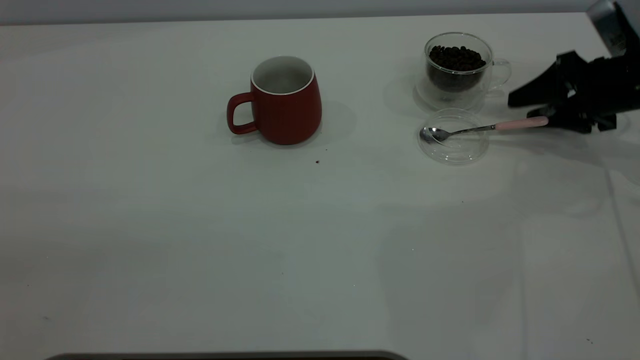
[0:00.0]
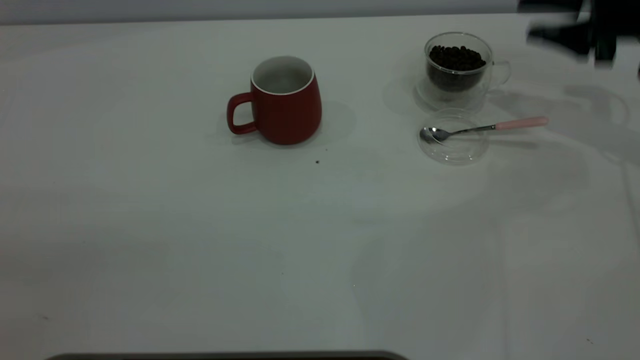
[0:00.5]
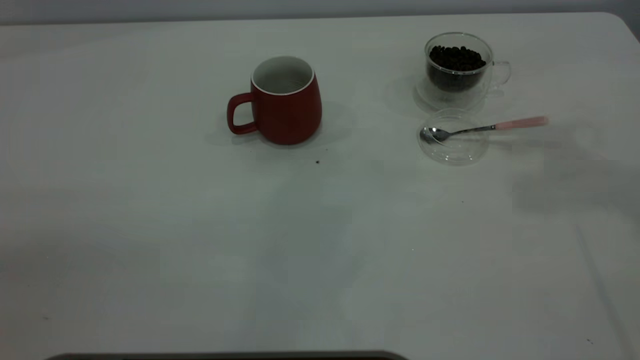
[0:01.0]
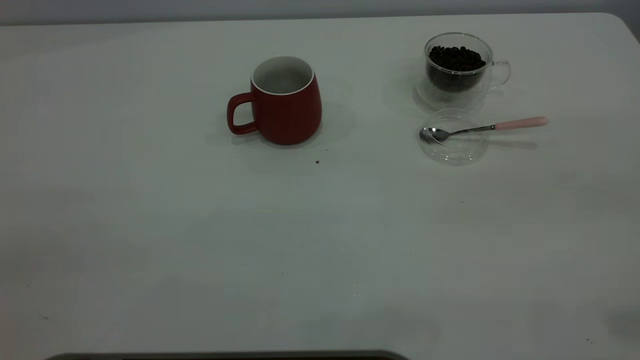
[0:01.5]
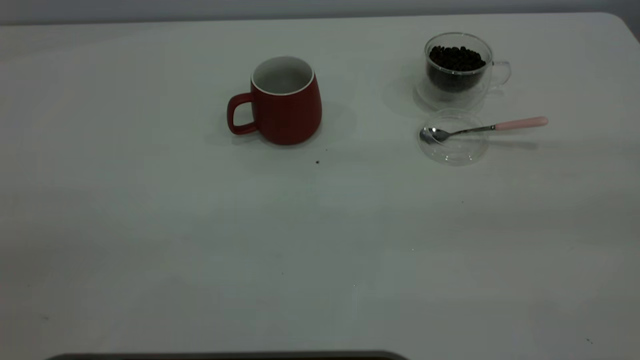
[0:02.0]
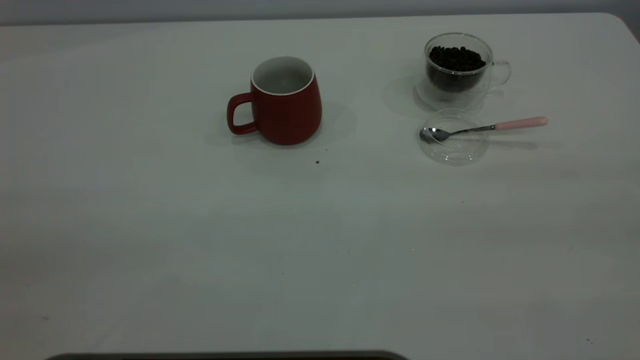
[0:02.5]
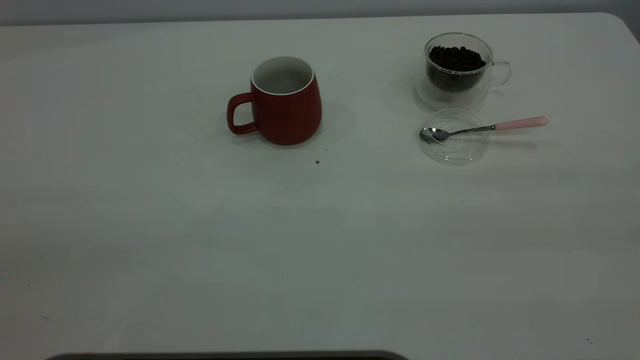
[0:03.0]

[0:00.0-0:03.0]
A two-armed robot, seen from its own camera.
Task of the whole recording: the left gripper place the red cup in the center of the table, the right gripper take the pink spoon from the cup lid and scoop out the coffee beans from the coffee cup and put them into the red cup, the right gripper put the spoon back into the cup lid.
0:00.0 to 0:01.5: The right gripper goes about 40 cm backward and upward.

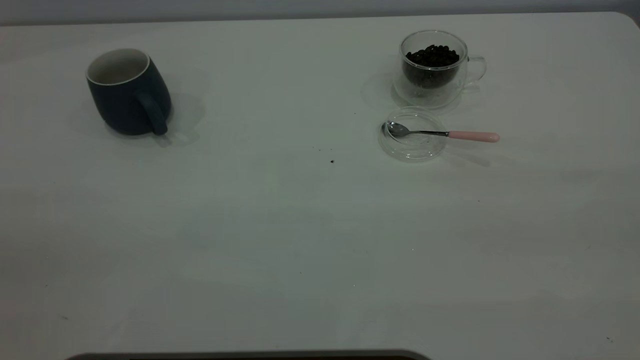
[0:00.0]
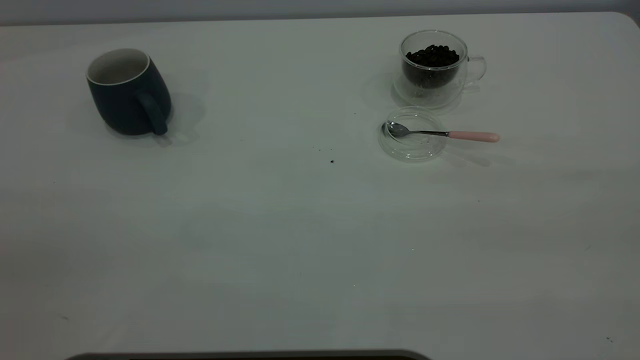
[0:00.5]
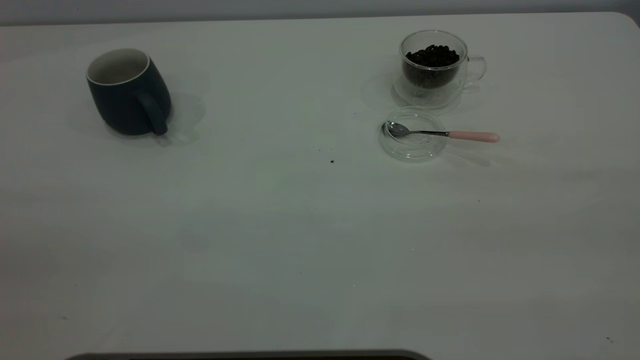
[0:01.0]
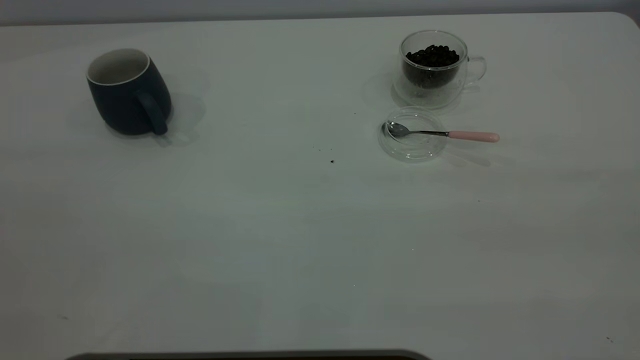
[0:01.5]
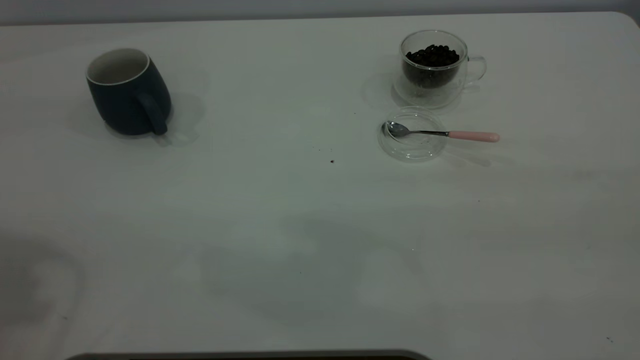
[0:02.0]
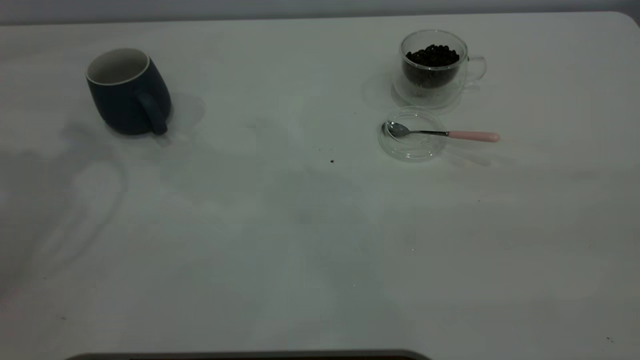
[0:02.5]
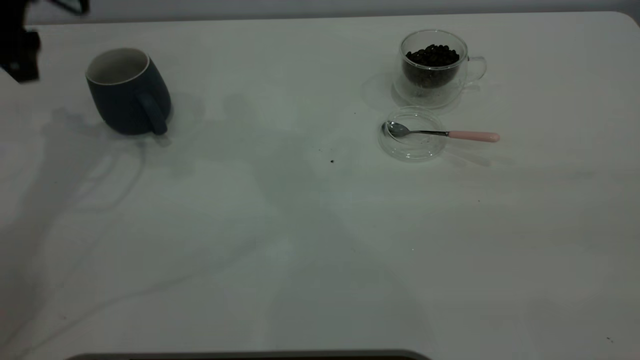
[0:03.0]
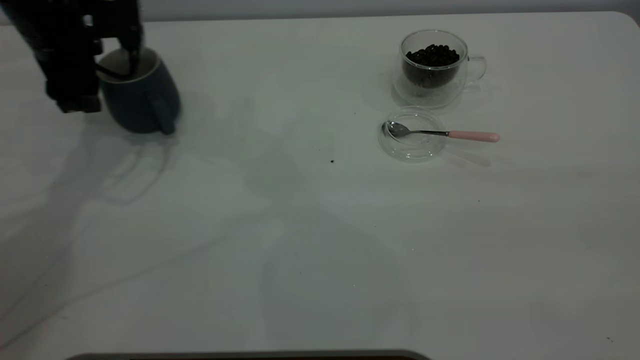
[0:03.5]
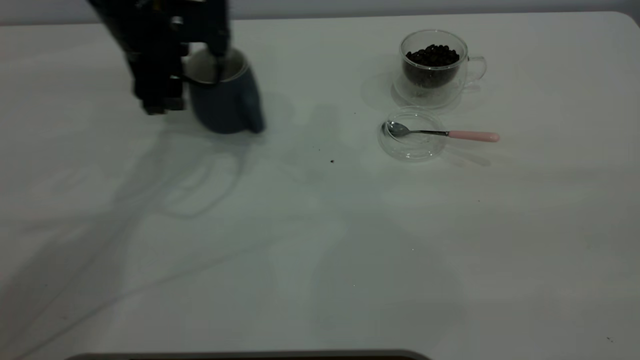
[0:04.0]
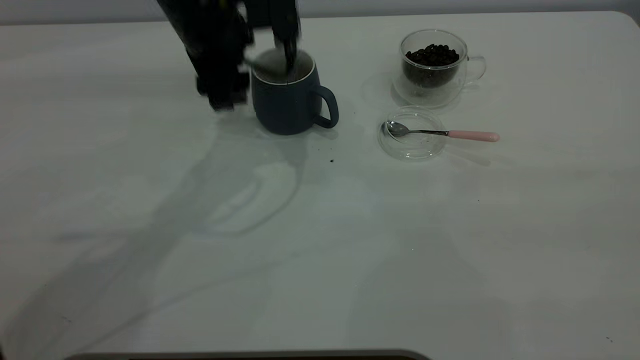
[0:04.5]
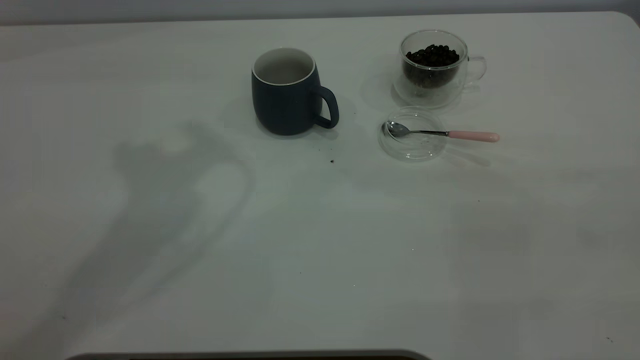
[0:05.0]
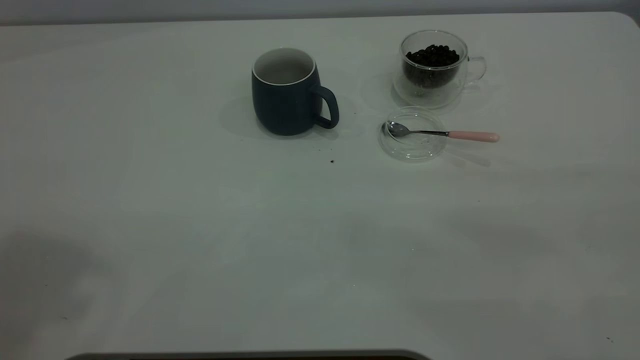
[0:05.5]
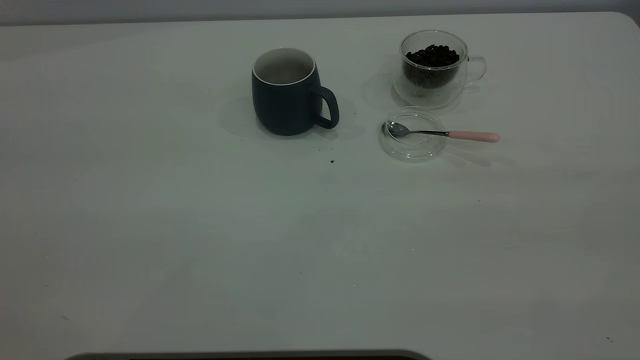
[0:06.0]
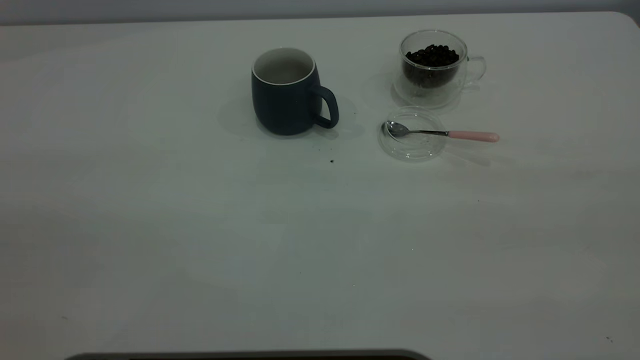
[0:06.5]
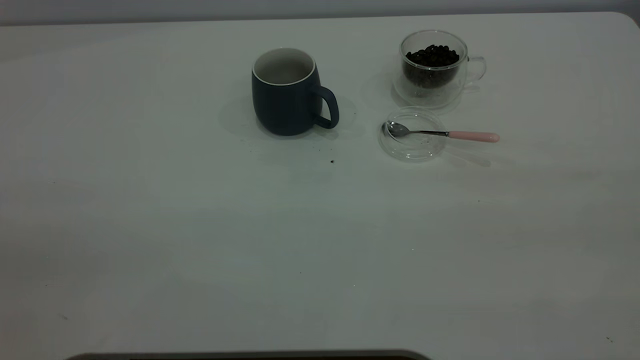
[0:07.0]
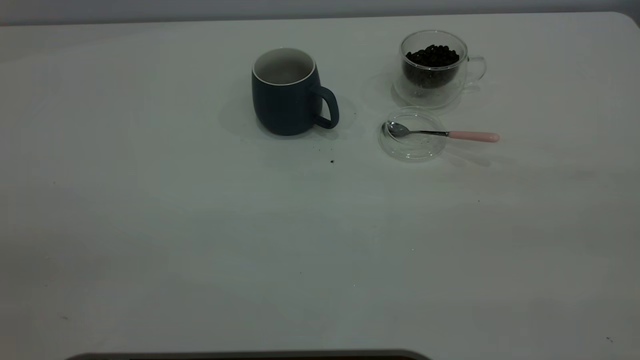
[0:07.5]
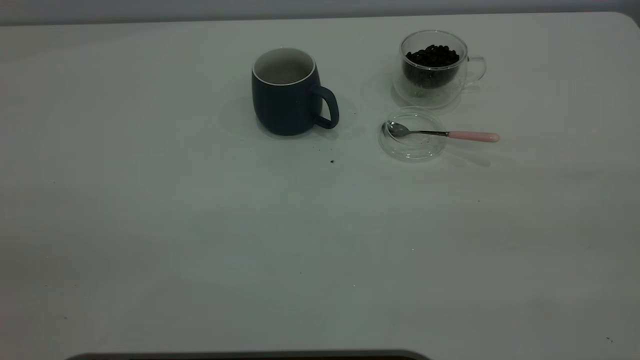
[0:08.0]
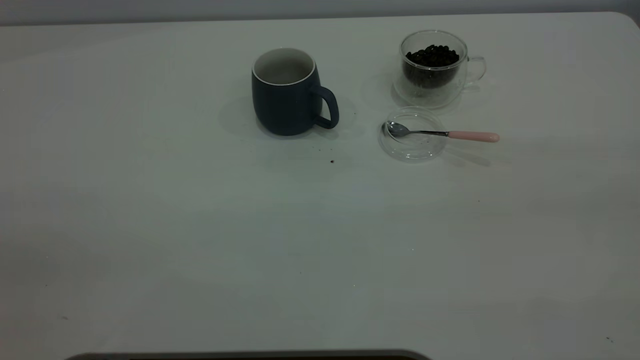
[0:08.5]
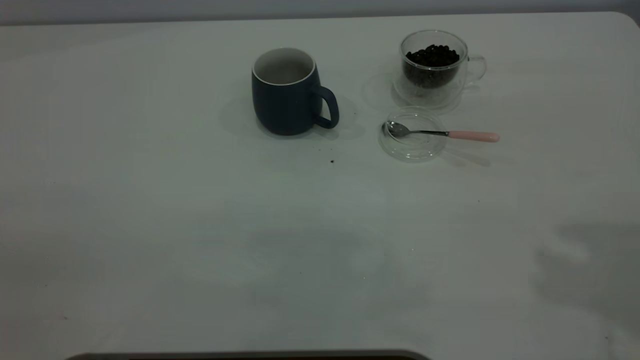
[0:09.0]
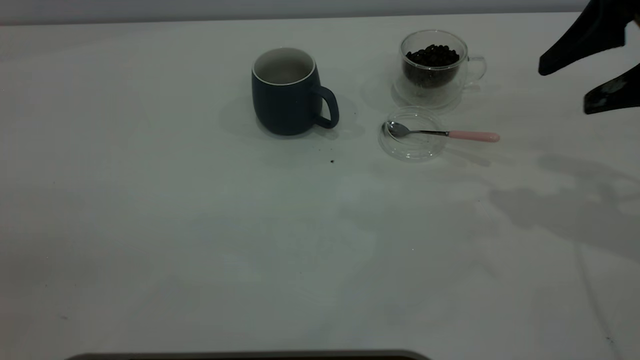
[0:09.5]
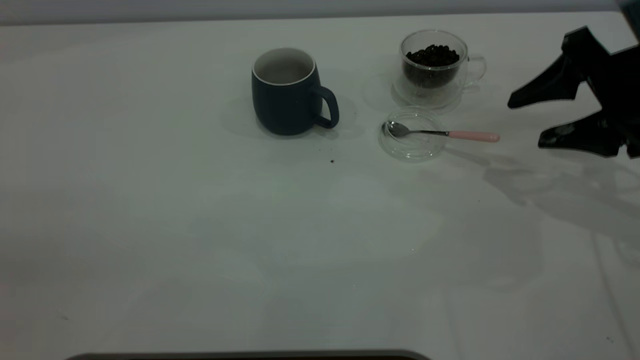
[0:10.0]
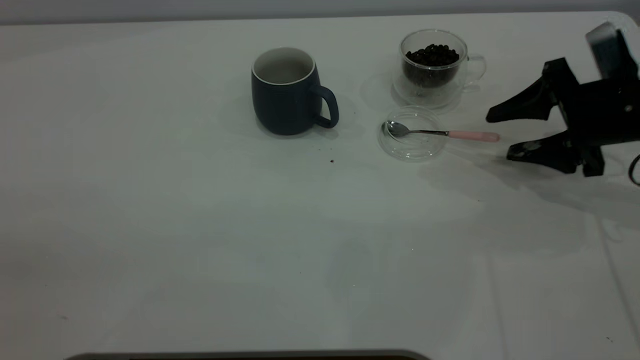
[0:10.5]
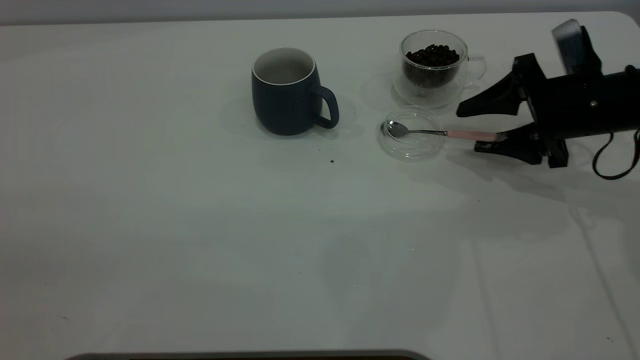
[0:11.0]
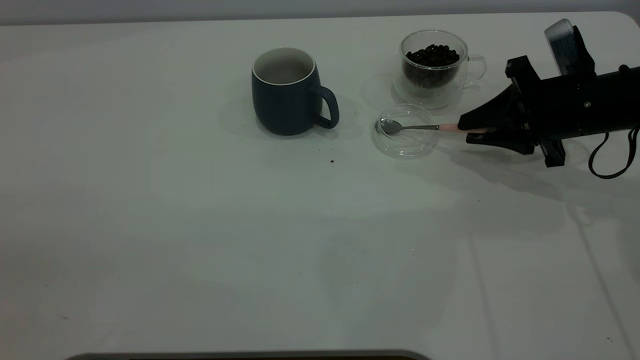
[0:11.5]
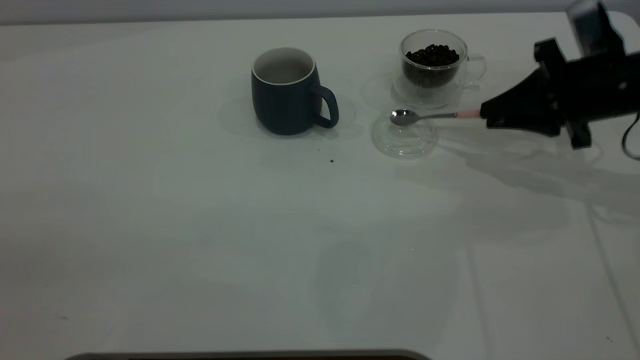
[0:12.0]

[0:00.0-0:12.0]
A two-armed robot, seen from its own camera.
Task of the whole recording: the left gripper place the grey cup in the center of the table, the right gripper take the pink spoon from the cup lid and scoop out the coffee beans from the coffee cup and put them into the grey cup, the right gripper put the spoon back into the cup lid.
Step, 0:00.0 to 0:04.5: Move the cup to the center of view.
Step, 0:05.0 to 0:12.0: Pick up the spoon.
0:02.0 to 0:04.0: The left gripper moves downward, forward and to the right, some 35 cm.
0:04.0 to 0:06.0: The left gripper travels backward and upward by roughly 50 cm.
0:08.0 to 0:10.0: The right gripper goes some 40 cm forward and downward.
0:10.0 to 0:12.0: The right gripper closes.

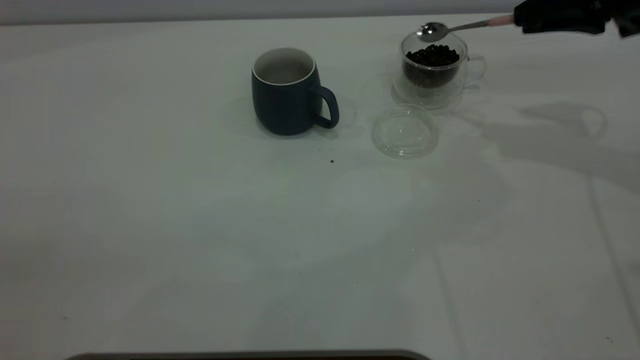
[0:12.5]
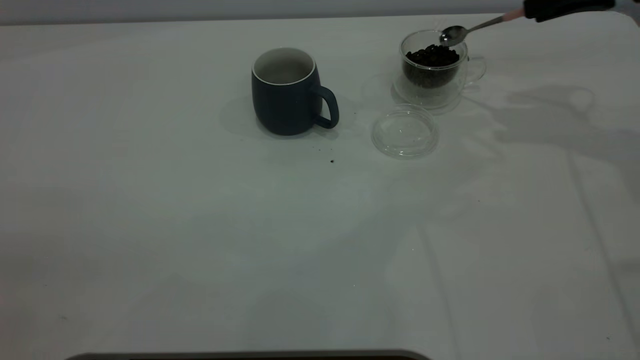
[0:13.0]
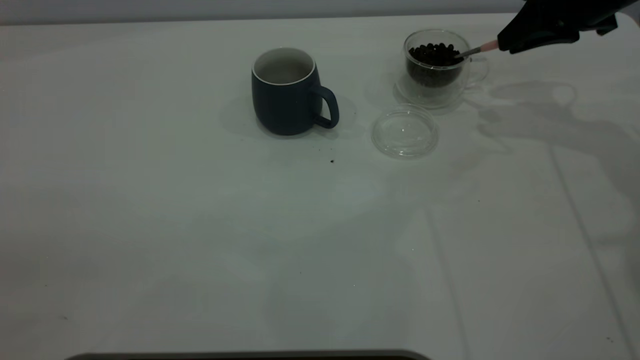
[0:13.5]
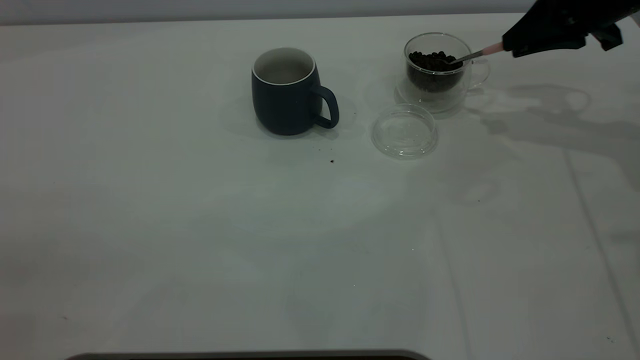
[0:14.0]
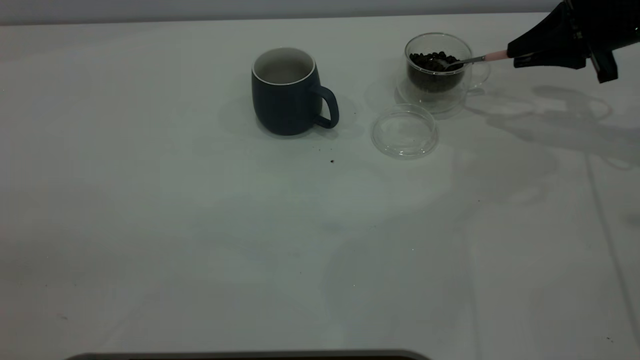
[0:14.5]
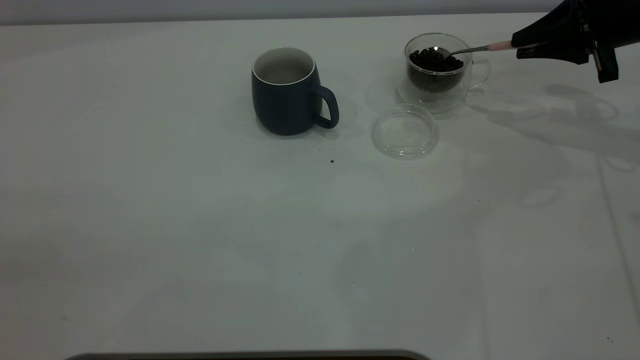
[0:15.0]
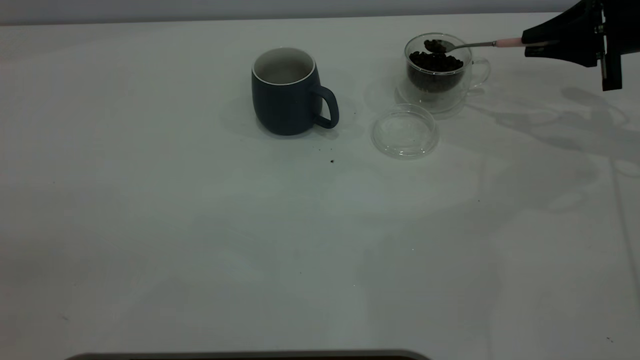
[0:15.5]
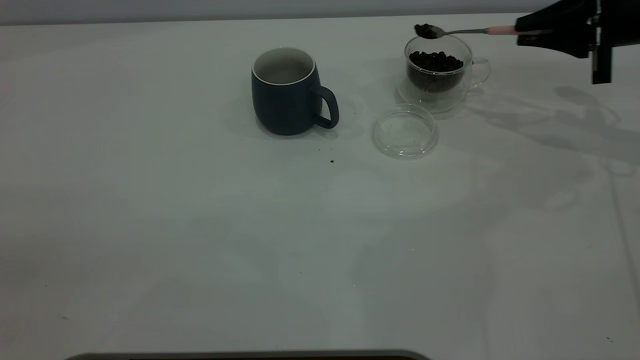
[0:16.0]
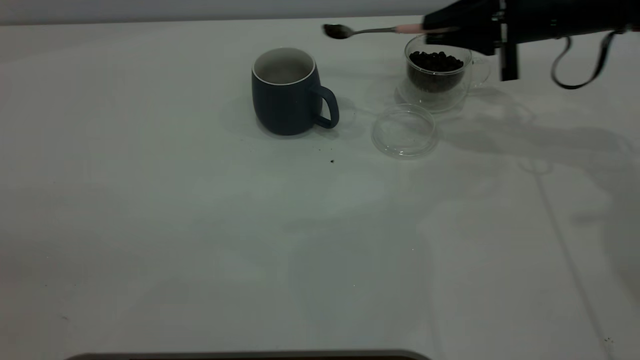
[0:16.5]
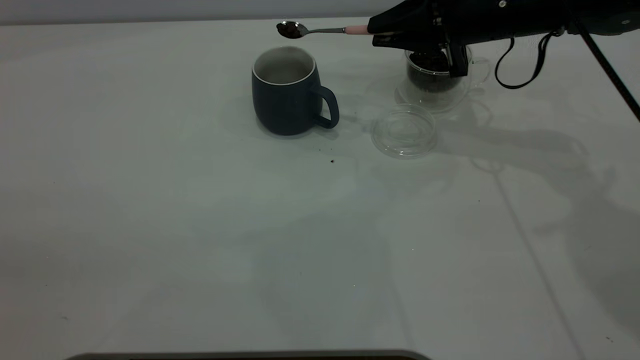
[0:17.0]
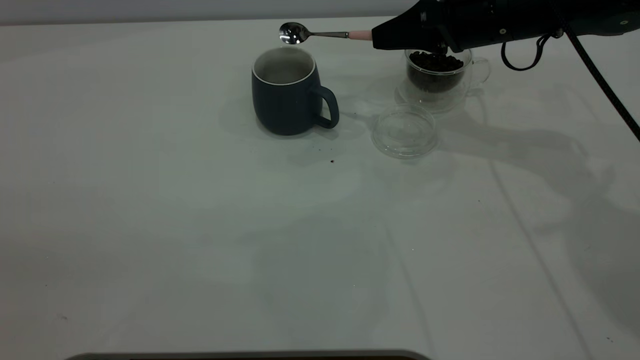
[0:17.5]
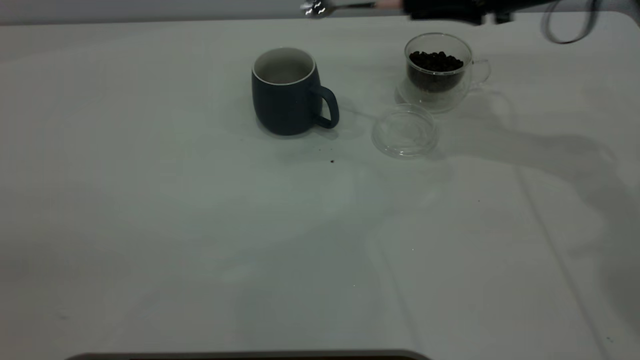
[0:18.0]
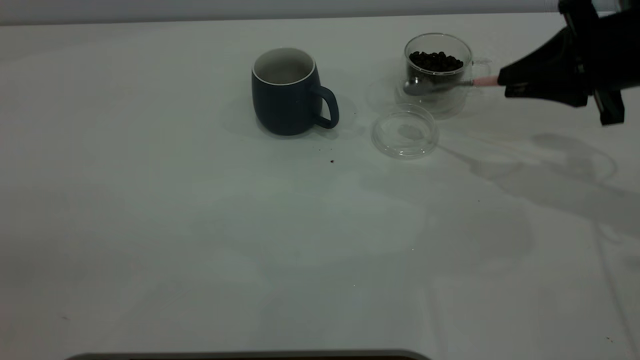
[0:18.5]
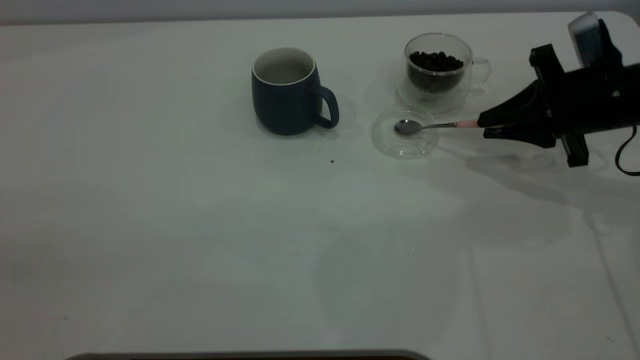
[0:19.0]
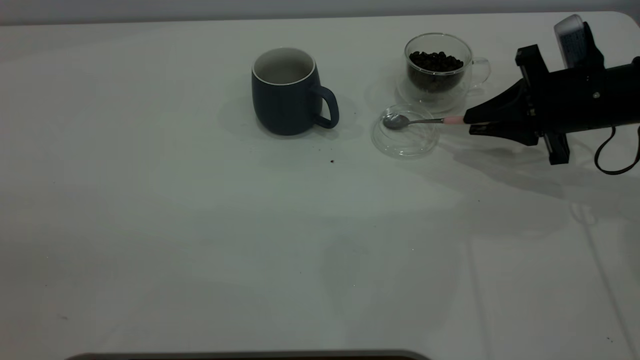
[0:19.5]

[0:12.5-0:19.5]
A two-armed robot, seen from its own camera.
Task of the whole recording: the left gripper place the grey cup in the center of the table, the right gripper take the pink spoon from the cup lid and scoop out the coffee beans from the coffee cup and put them into the grey cup, the right gripper put the spoon back into the cup lid.
Step, 0:12.5 to 0:17.5: Scoop a spoonful of beans into the cup.
0:12.5 to 0:14.5: The right gripper travels downward by approximately 5 cm.
0:14.5 to 0:16.0: The grippers stay close to where they were, moving slightly.
0:16.0 to 0:17.5: The right gripper travels to the left by about 15 cm.
0:17.5 to 0:19.5: The right gripper heads to the right, backward and downward, covering roughly 15 cm.
